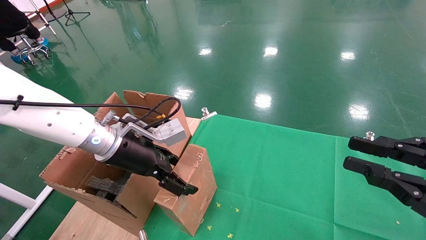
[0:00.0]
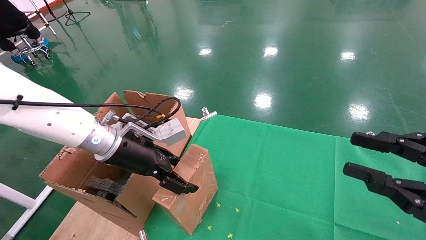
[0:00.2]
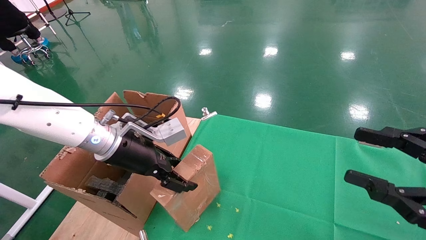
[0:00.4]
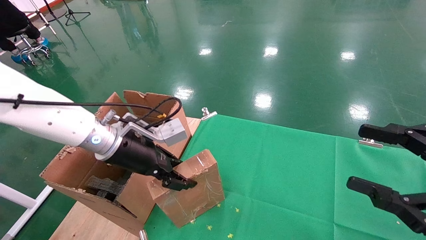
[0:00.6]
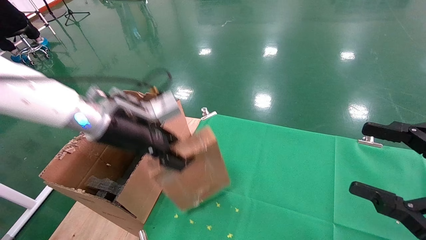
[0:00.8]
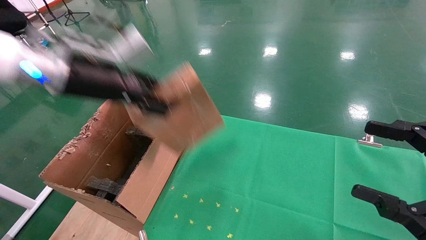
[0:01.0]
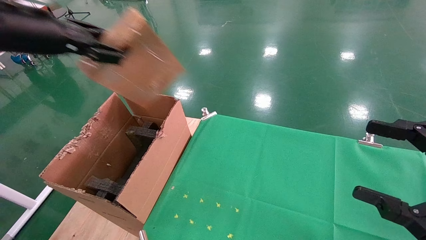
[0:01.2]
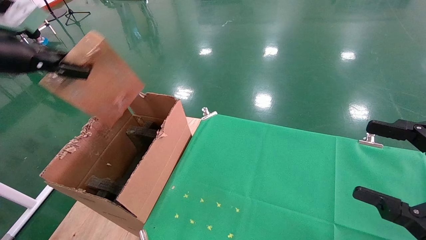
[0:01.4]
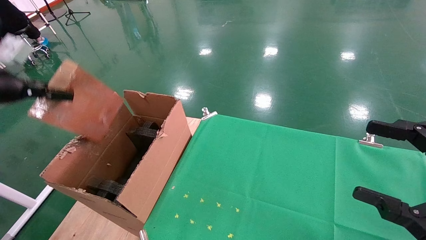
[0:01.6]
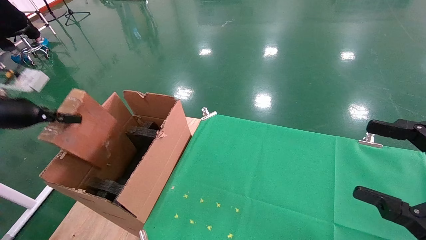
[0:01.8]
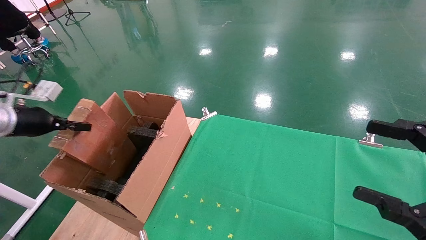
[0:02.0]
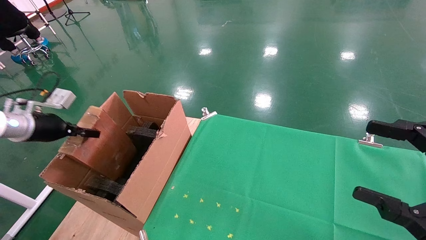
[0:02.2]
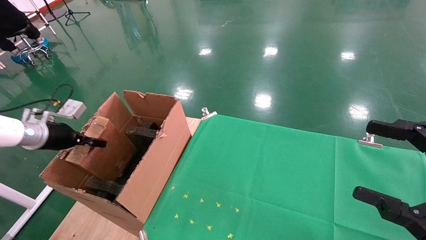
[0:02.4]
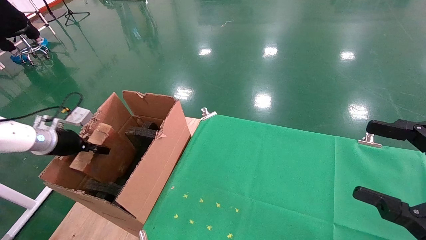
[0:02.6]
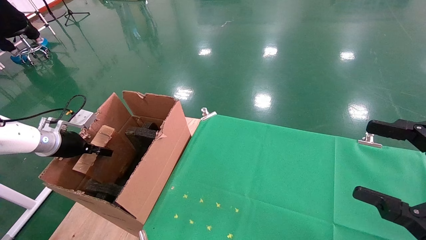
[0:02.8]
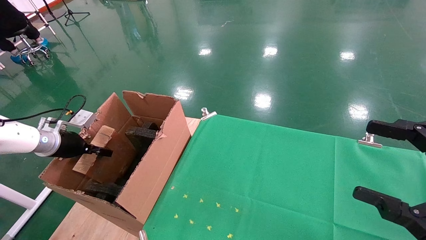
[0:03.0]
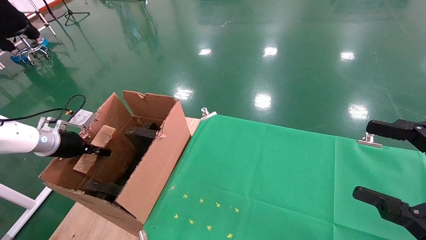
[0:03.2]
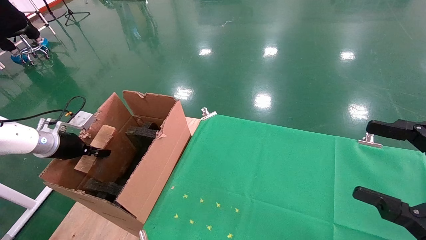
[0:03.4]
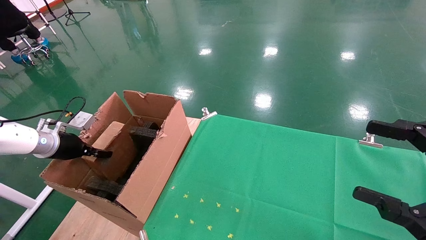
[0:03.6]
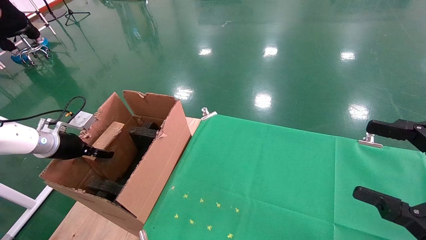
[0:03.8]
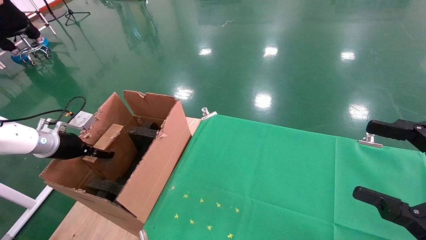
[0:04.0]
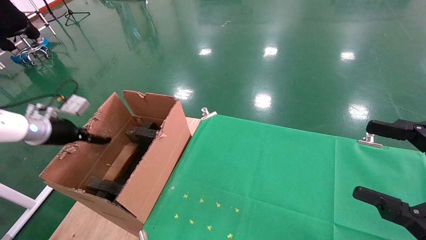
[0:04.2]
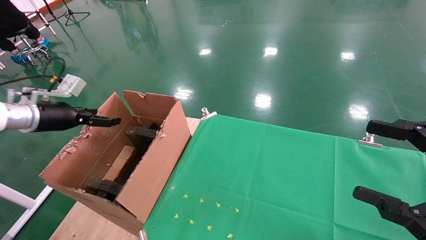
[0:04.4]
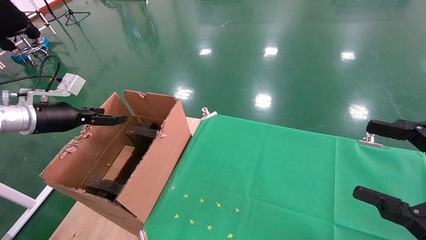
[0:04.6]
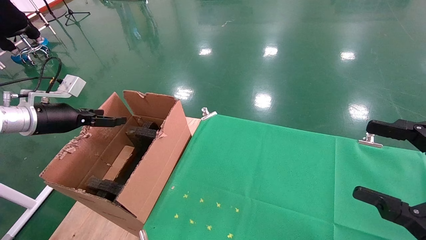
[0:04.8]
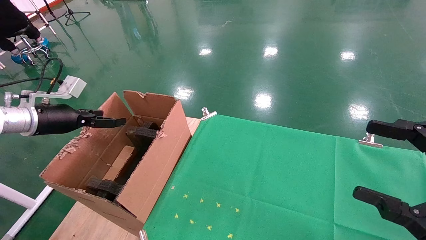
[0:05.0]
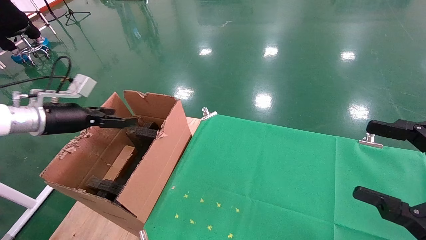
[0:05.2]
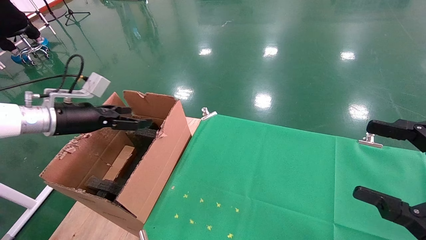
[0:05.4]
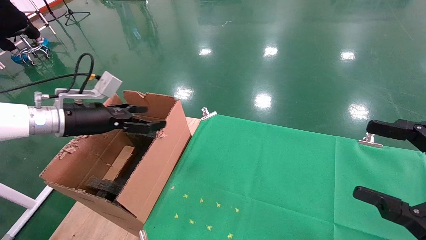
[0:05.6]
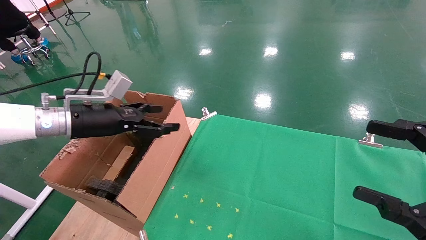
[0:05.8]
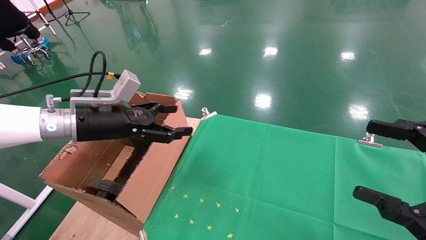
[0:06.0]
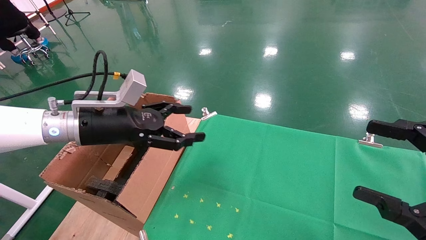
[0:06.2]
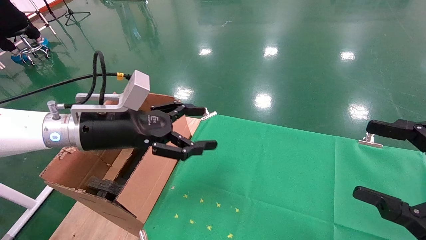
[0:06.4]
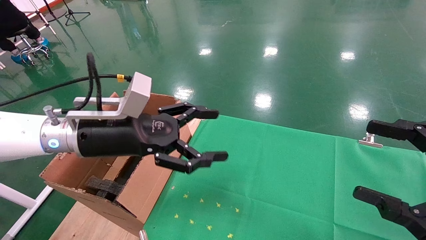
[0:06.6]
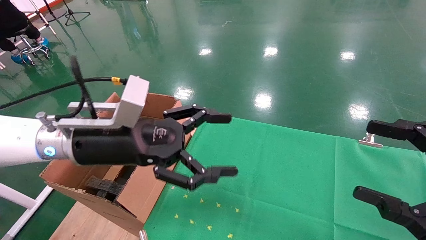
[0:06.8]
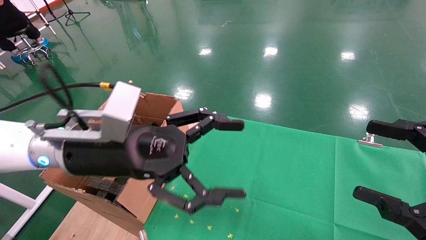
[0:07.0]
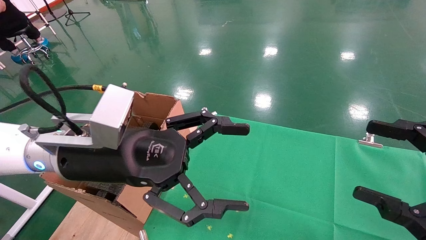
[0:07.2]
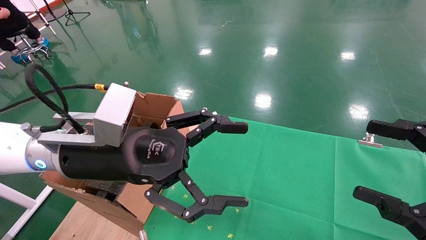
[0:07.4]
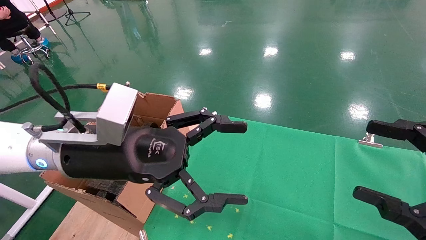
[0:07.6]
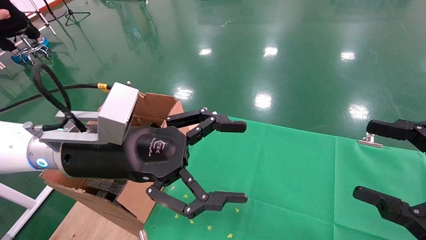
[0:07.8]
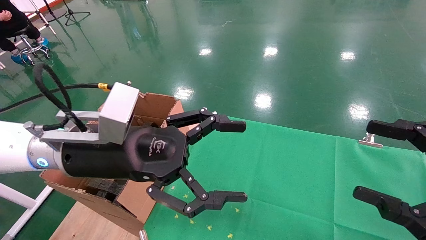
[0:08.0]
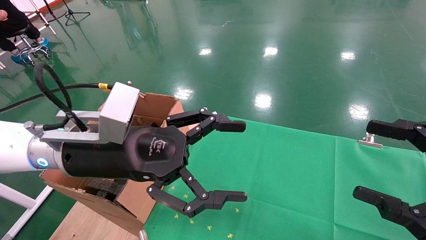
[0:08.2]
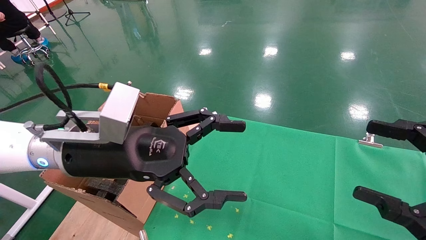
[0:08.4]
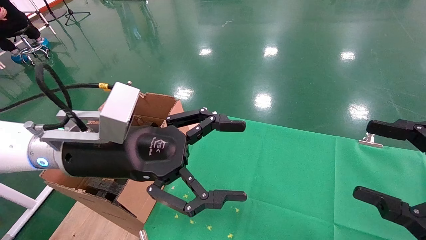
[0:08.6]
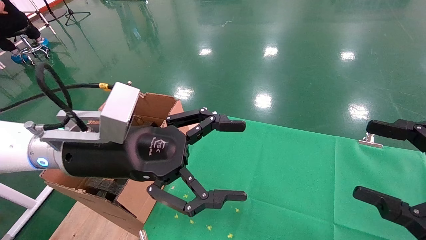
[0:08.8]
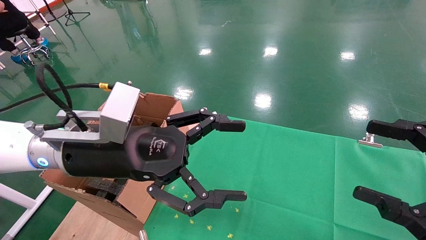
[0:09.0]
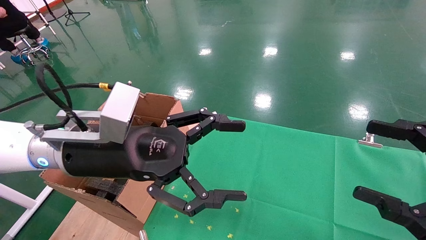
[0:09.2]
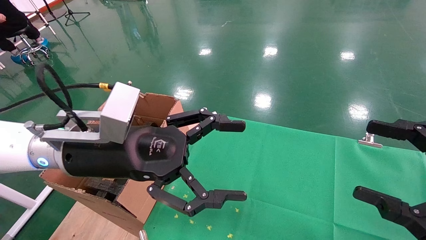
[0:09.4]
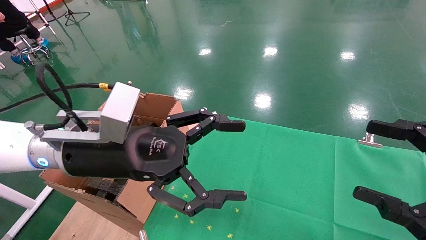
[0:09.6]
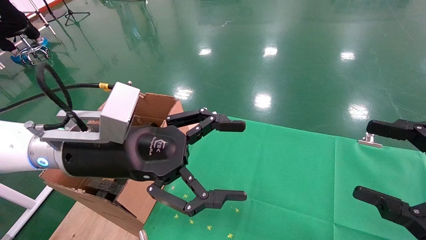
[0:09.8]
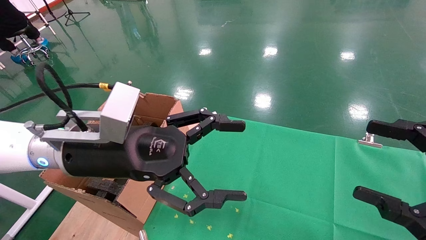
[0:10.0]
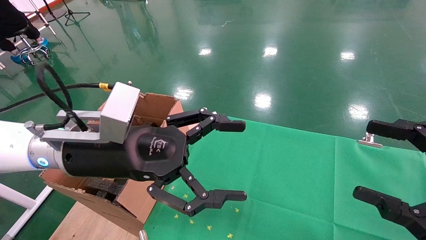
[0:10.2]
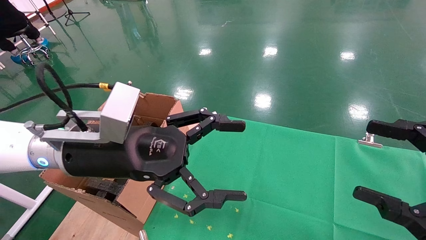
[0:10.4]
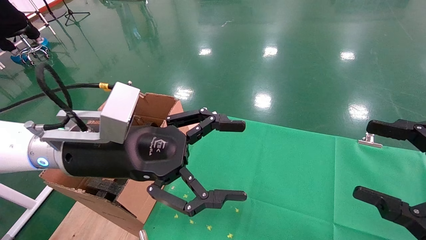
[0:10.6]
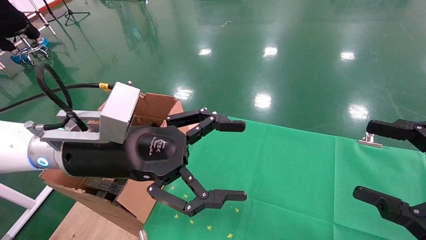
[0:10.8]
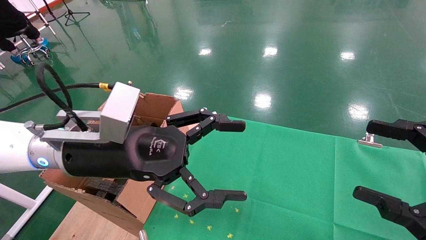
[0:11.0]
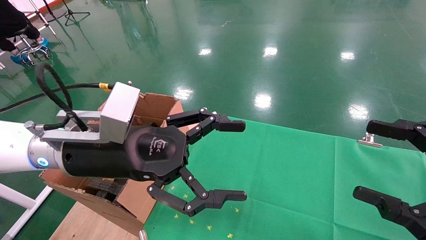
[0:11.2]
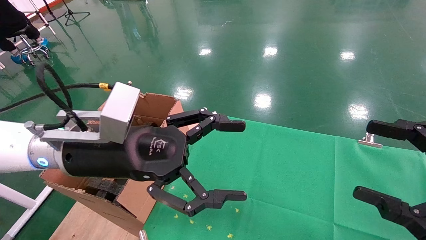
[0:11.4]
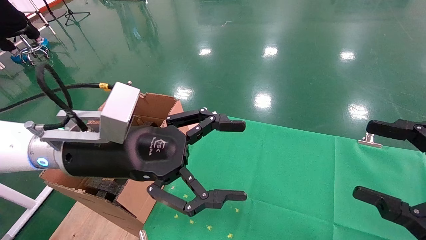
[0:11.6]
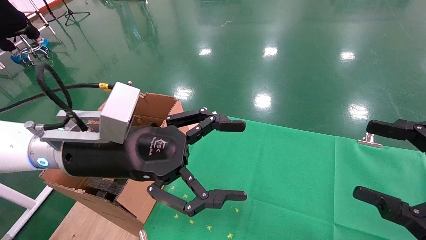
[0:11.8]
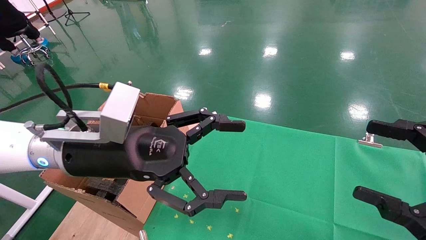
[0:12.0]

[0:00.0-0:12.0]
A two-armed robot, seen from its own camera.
Task of the whole recording: using a robotic arm to pick up a cardboard box and palace it the carton.
Step, 0:00.6 to 0:04.4: Place the mouse and the power cord paper box into the container.
0:00.0 to 0:01.6: The right gripper opens its fingers. The left gripper is displaced to the left and upward by approximately 25 cm, and closes its fingers.
0:01.6 to 0:03.0: The left gripper shifts about 20 cm downward and forward.
0:03.0 to 0:04.4: The left gripper shifts about 5 cm upward, and opens up.
0:04.4 to 0:06.0: The left gripper goes about 15 cm to the right.
0:06.0 to 0:07.6: The left gripper heads to the right and backward, covering about 15 cm.
0:07.6 to 0:12.0: Both grippers stay about where they are.
